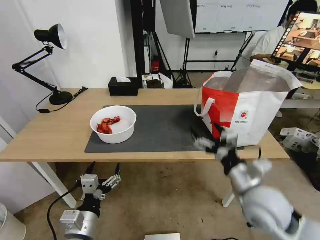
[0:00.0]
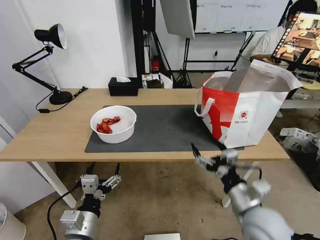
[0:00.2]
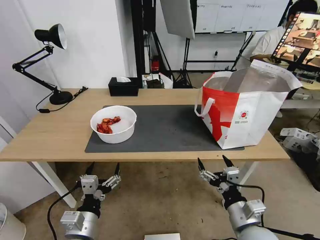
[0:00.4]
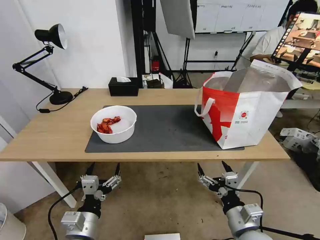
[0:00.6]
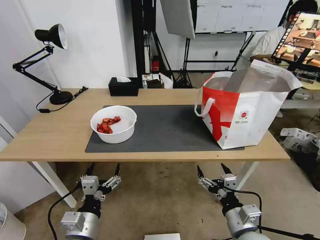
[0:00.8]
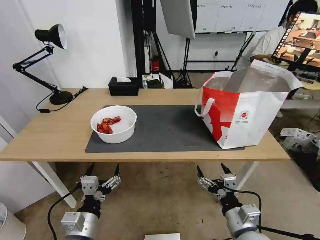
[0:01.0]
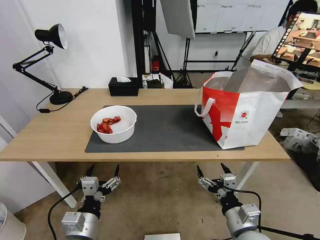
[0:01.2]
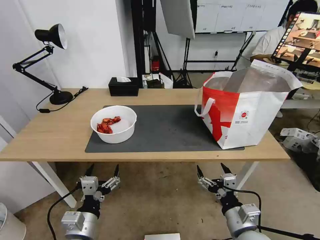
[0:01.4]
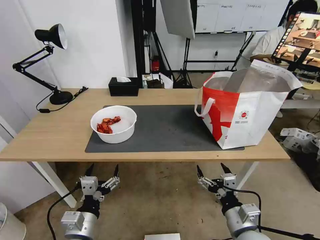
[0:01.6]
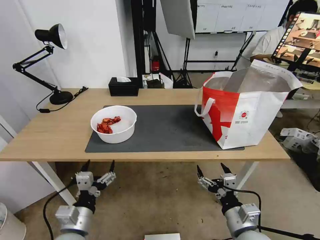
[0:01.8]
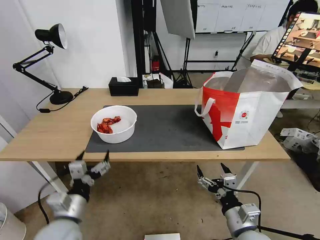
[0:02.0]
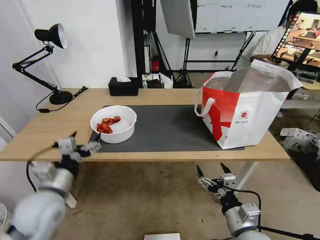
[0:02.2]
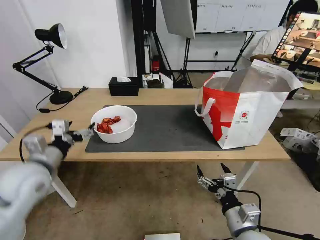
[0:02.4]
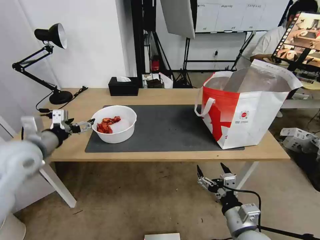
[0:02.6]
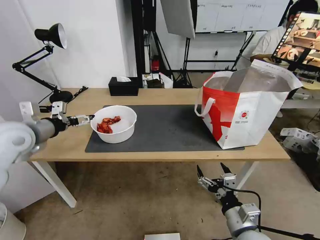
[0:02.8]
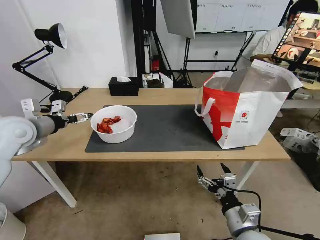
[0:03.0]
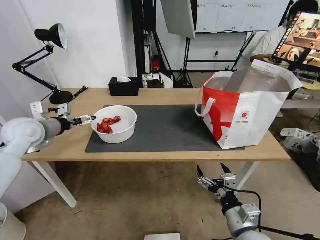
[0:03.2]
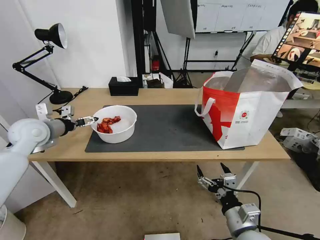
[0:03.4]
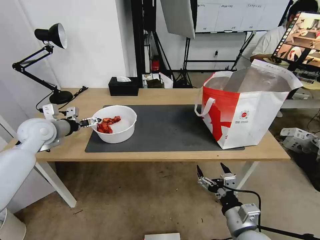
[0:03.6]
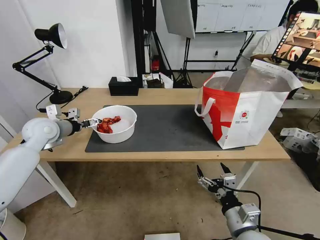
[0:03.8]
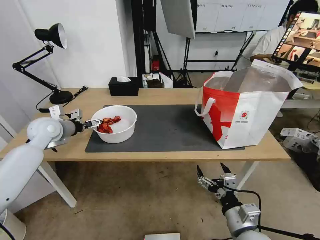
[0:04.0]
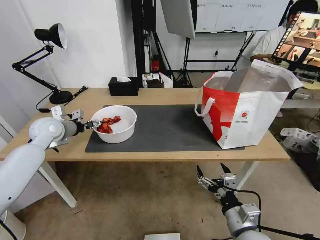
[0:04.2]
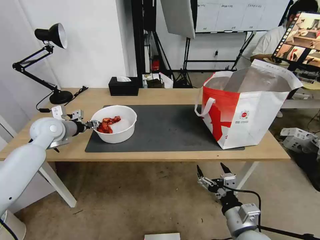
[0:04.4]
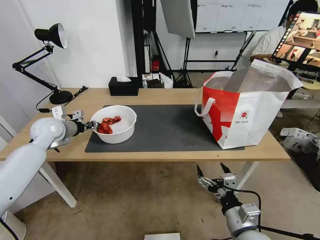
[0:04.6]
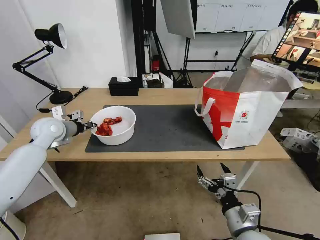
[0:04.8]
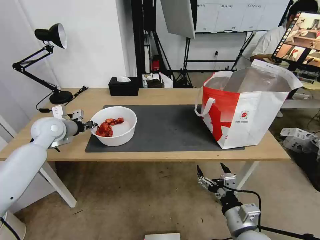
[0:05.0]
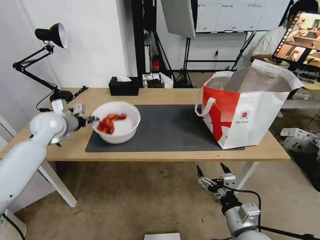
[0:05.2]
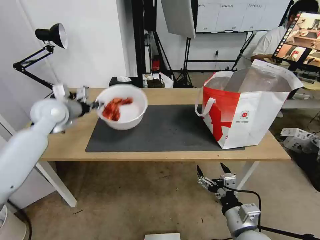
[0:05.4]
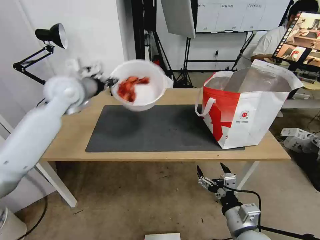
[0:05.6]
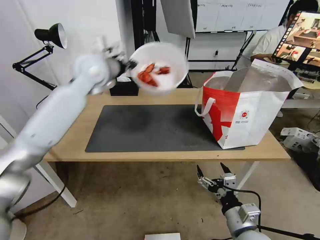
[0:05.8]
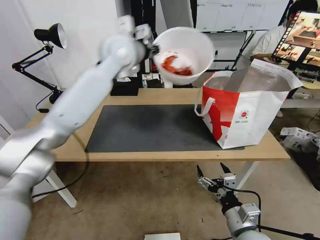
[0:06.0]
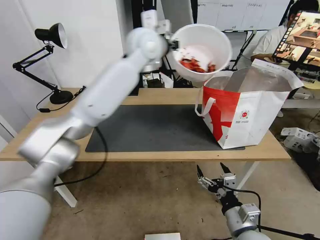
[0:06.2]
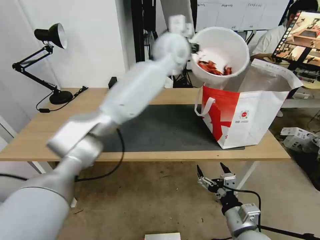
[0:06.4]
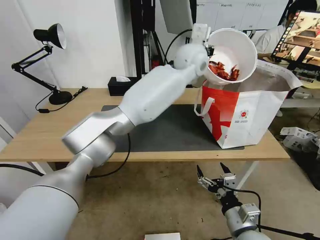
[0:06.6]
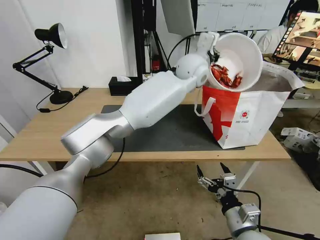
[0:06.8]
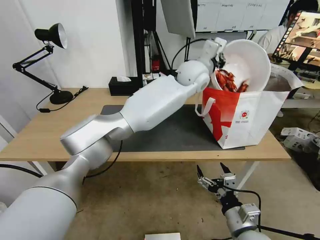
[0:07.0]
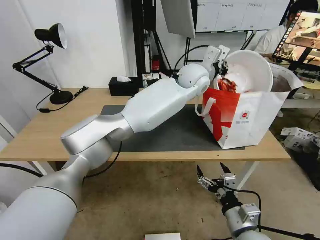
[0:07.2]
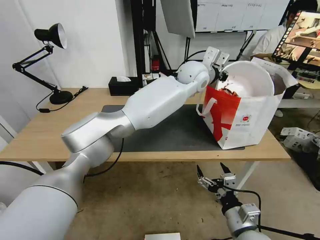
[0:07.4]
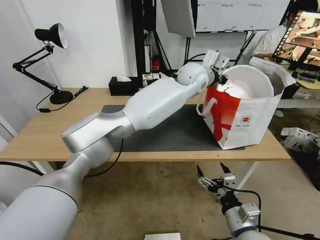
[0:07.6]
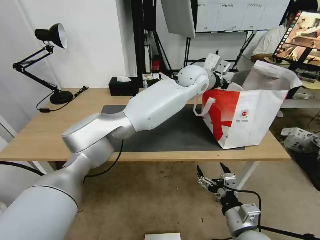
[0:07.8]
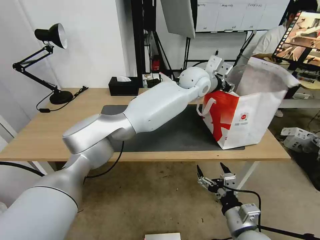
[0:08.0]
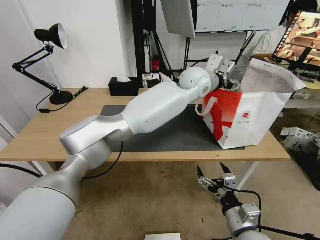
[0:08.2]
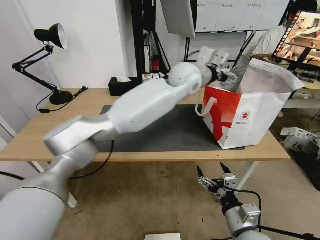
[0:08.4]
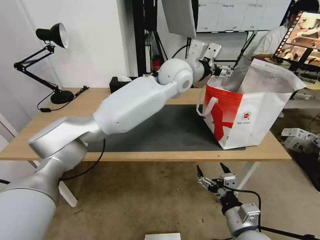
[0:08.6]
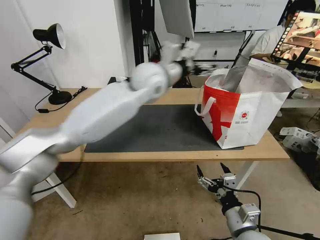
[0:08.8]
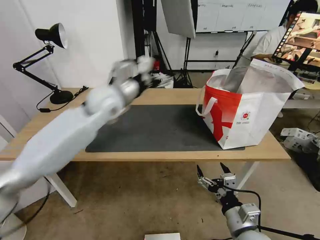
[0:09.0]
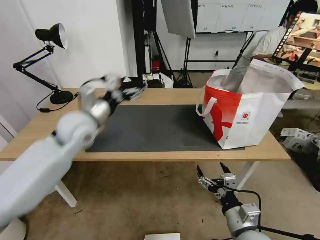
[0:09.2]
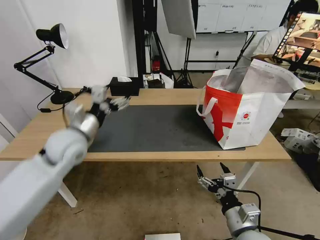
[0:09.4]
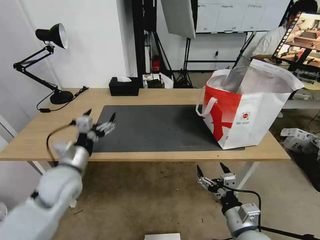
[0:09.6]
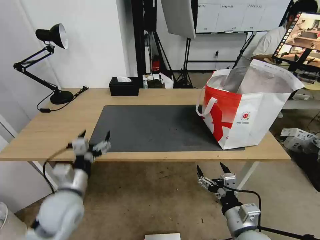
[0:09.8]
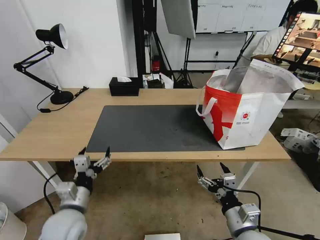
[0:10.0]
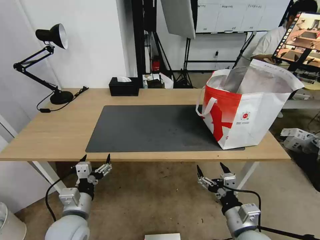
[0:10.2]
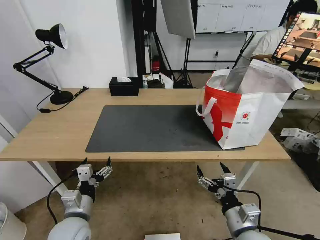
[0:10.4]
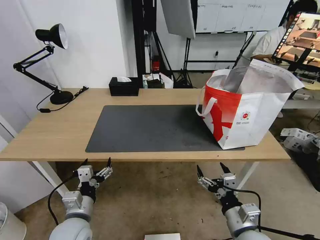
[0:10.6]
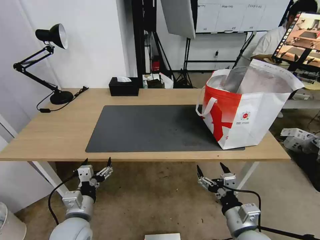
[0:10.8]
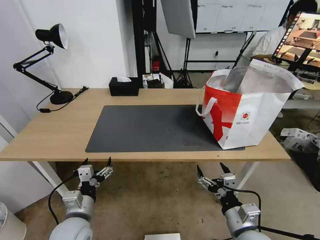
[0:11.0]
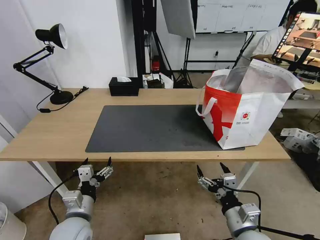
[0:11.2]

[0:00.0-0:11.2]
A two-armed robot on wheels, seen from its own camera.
Task of the whole recording: Pick up the trash from the table and place it into the takeout bag.
0:00.0 to 0:01.6: The right gripper moves downward and backward, approximately 15 cm.
0:01.6 to 0:03.2: The left gripper goes roughly 35 cm forward, upward and to the left.
0:03.2 to 0:04.8: The left gripper travels forward by roughly 5 cm, and closes.
0:04.8 to 0:06.4: The left gripper moves to the right and upward, some 50 cm.
0:06.4 to 0:08.0: The left gripper is displaced downward and to the right by approximately 10 cm, and opens.
0:08.0 to 0:09.6: The left gripper heads to the left and backward, covering about 50 cm, and opens its fingers.
0:09.6 to 0:11.2: The left gripper heads downward and backward, covering some 15 cm.
